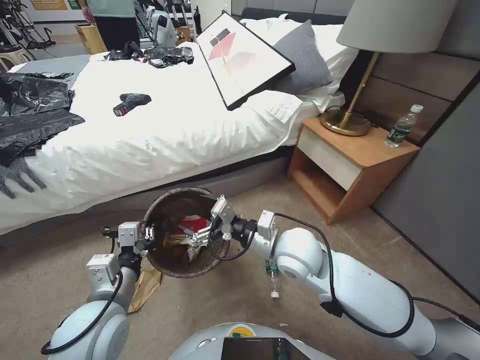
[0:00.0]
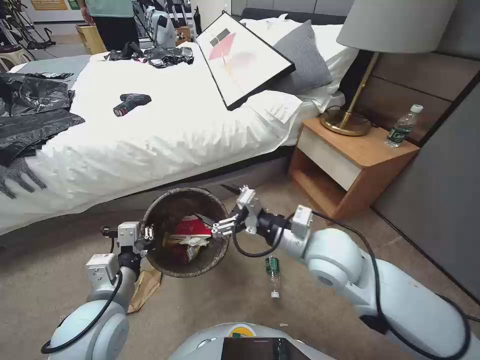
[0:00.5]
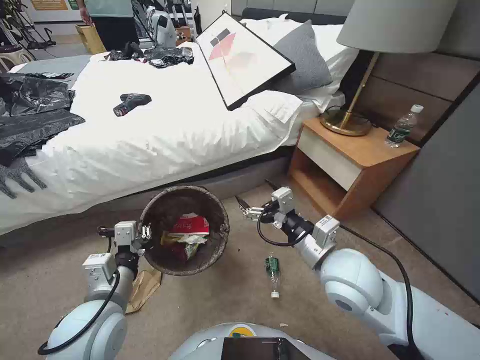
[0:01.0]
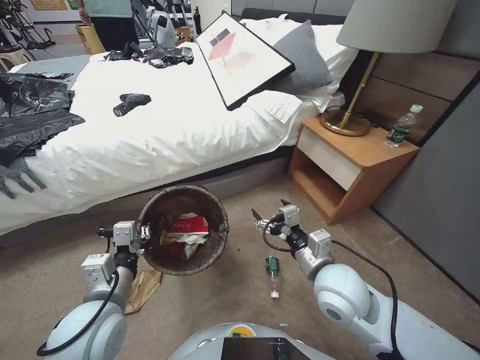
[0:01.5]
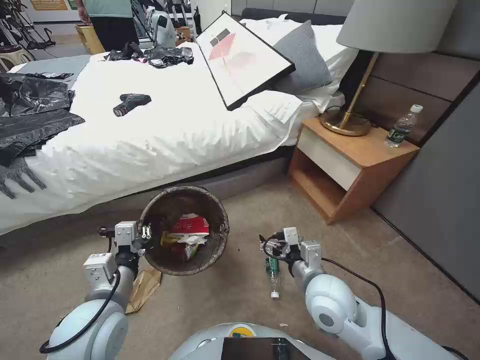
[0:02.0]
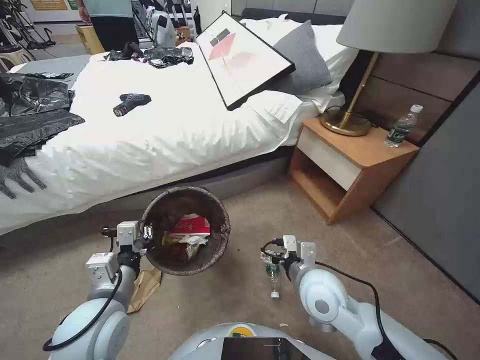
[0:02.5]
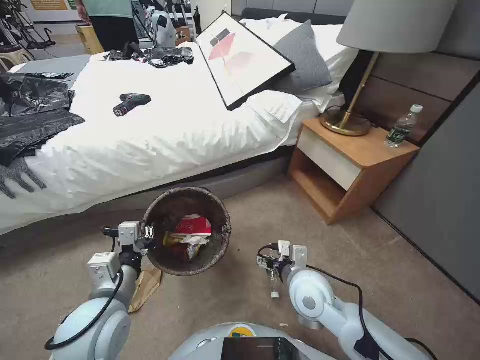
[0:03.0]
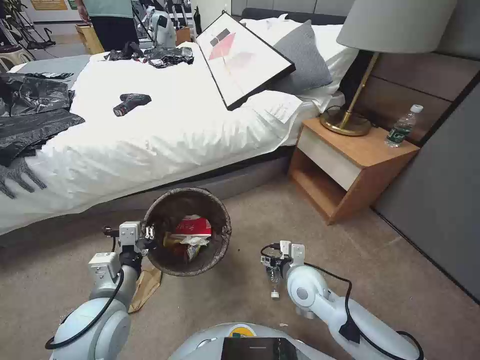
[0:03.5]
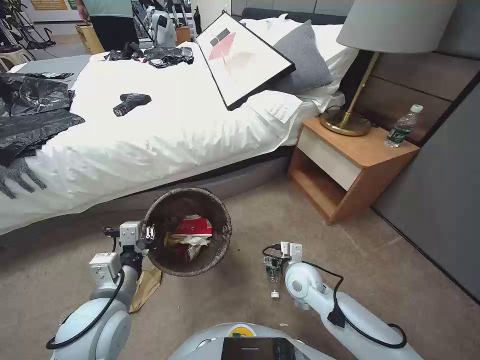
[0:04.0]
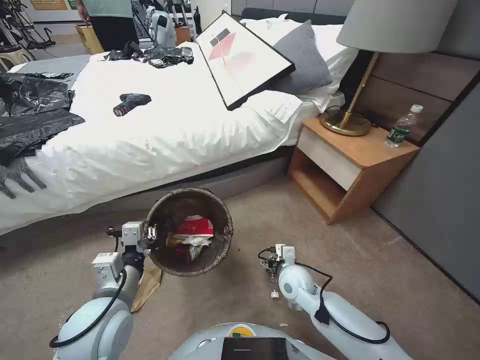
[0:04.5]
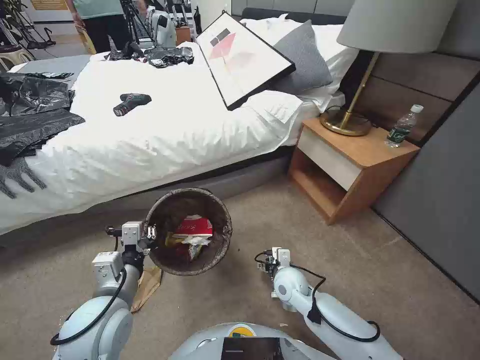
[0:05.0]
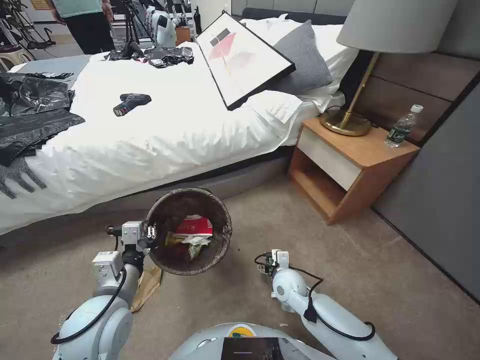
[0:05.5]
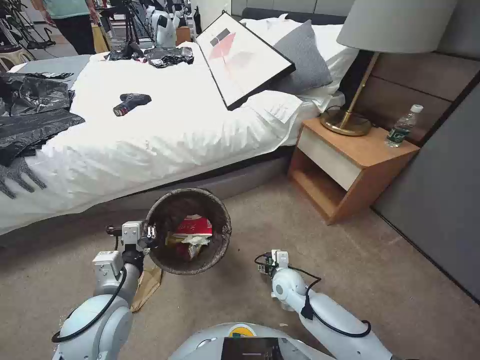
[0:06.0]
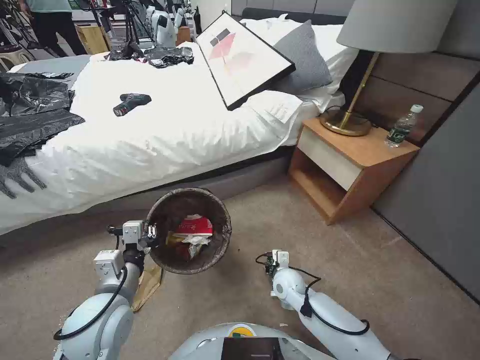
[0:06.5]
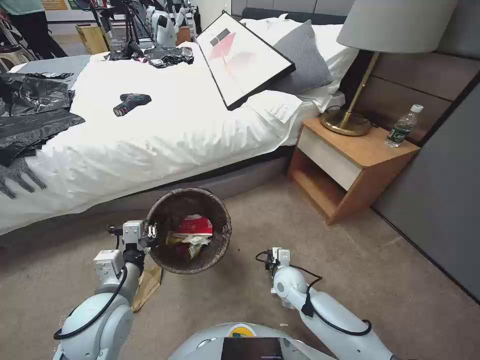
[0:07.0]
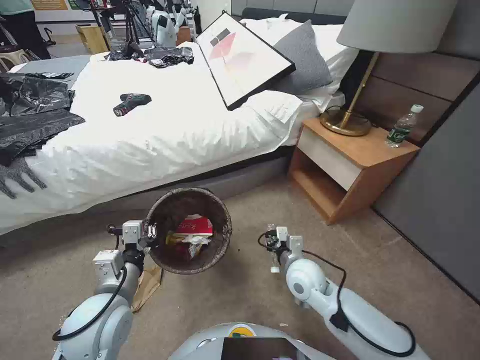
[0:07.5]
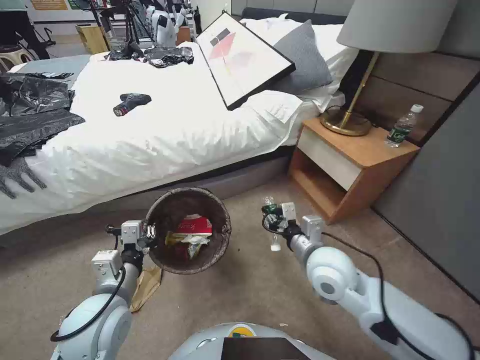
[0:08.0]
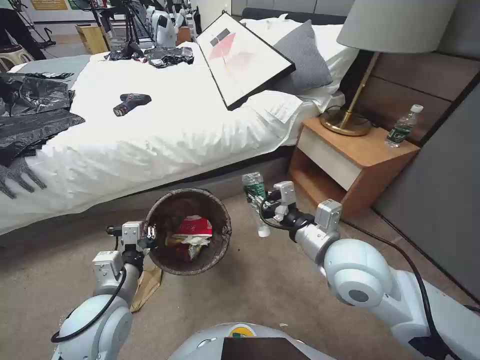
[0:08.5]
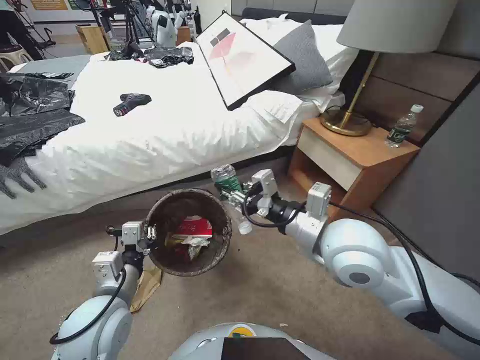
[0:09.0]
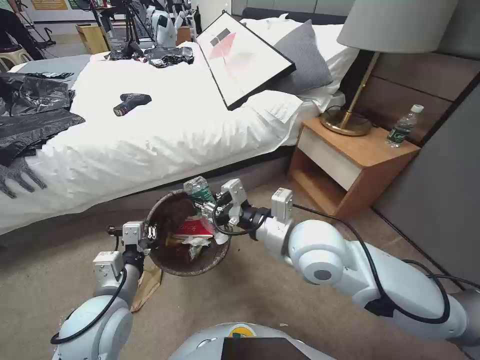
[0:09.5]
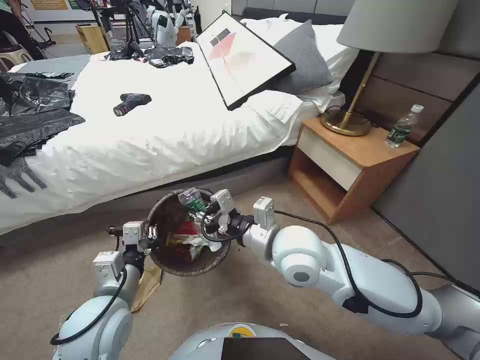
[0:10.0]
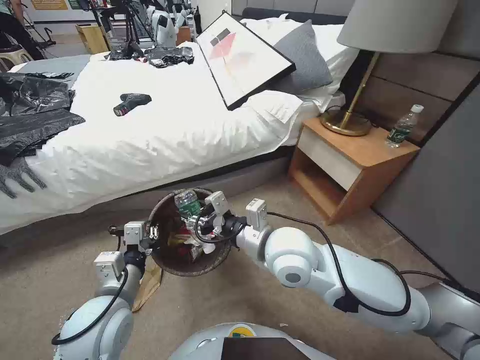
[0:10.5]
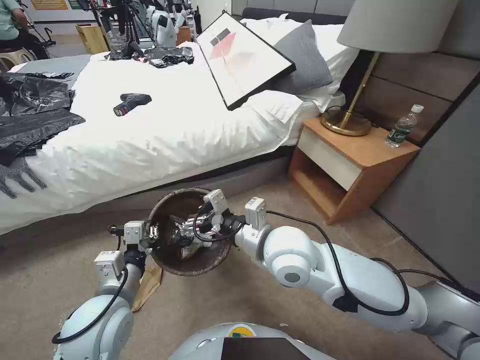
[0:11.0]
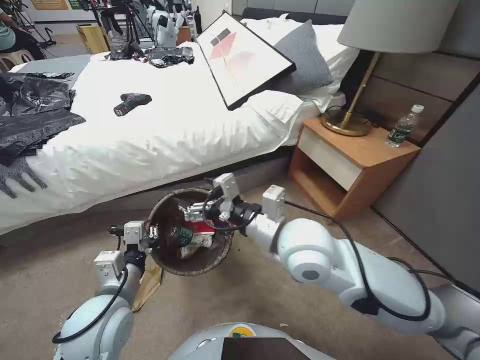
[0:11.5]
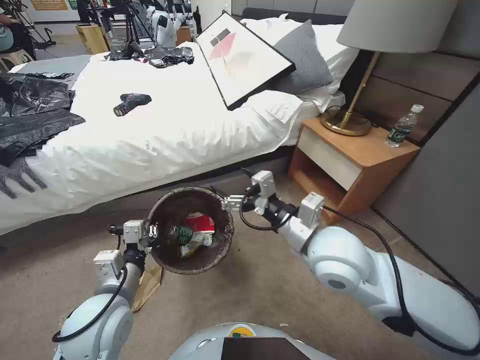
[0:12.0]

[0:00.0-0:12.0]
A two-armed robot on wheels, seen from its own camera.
Task of the whole recording: Pick up the trash bin, then pick up the garbage from the floor and place it into the trash bin.
0:00.0 to 0:02.0: The right gripper heads backward, to the right and downward, covering about 10 cm.
0:02.0 to 0:04.0: The right gripper goes roughly 10 cm downward and forward.
0:04.0 to 0:06.0: The right gripper heads downward, covering some 10 cm.
0:06.0 to 0:08.0: The right gripper shifts roughly 20 cm upward, and closes its fingers.
0:08.0 to 0:10.0: The right gripper shifts some 15 cm upward and to the left.
0:10.0 to 0:12.0: The right gripper moves approximately 5 cm, and opens.

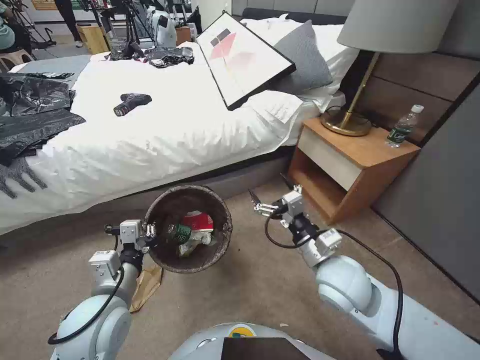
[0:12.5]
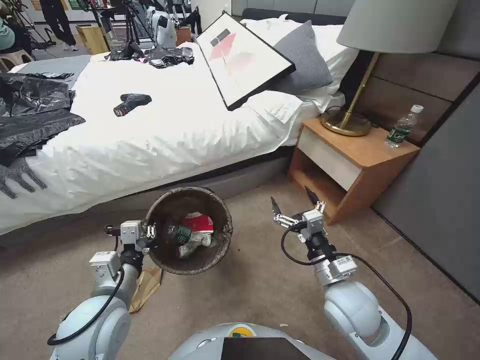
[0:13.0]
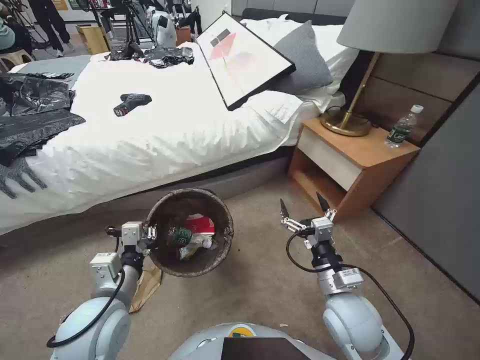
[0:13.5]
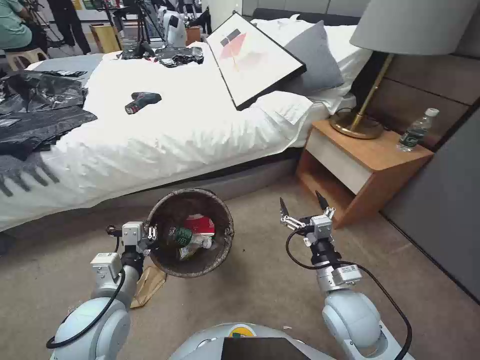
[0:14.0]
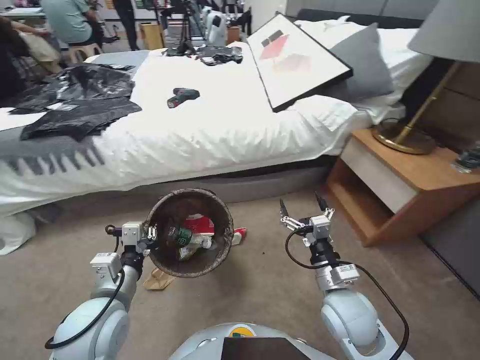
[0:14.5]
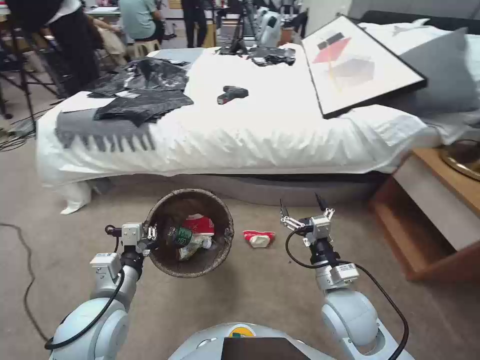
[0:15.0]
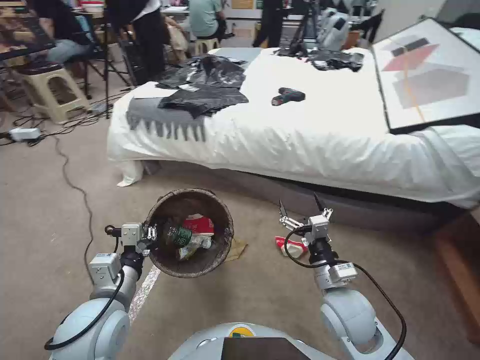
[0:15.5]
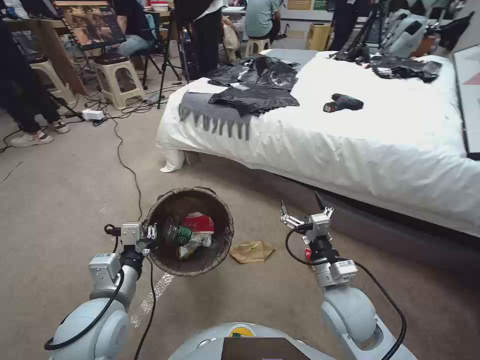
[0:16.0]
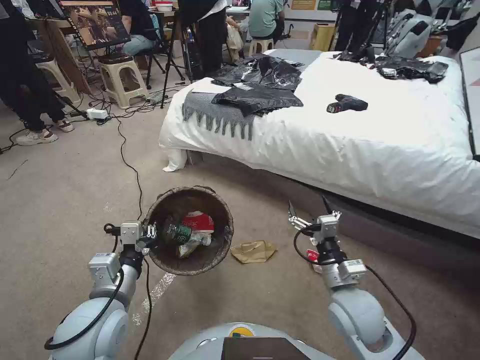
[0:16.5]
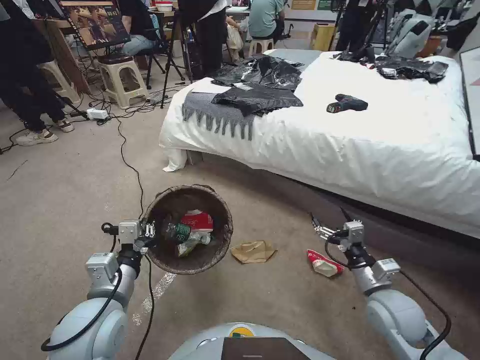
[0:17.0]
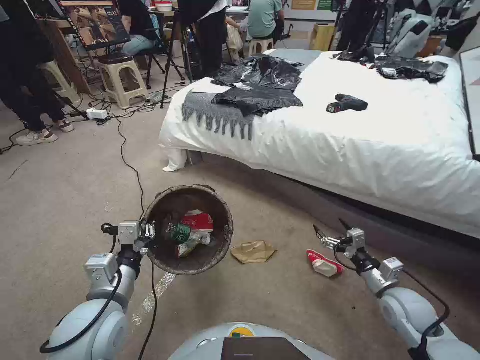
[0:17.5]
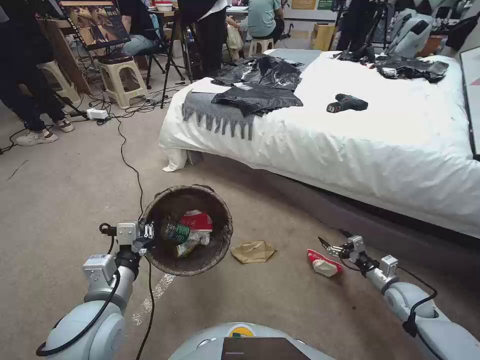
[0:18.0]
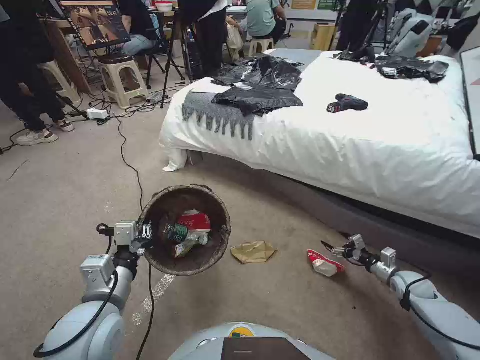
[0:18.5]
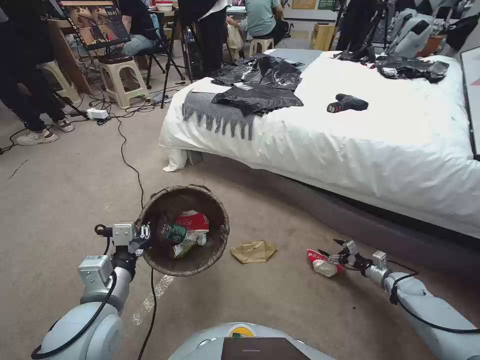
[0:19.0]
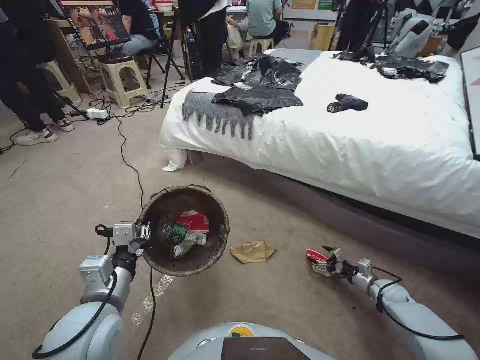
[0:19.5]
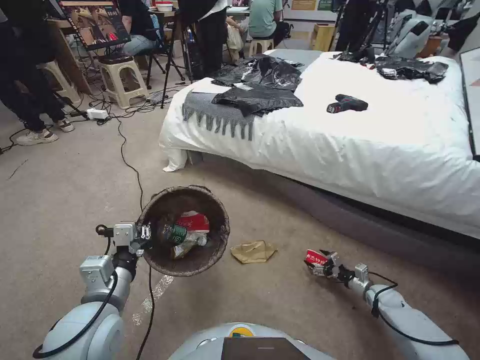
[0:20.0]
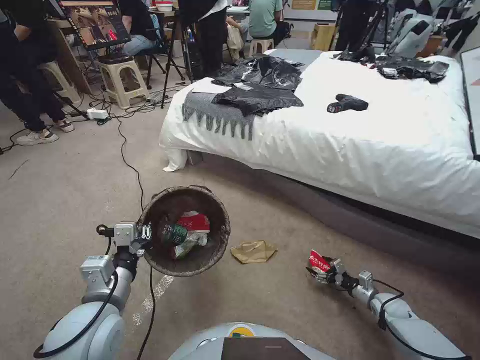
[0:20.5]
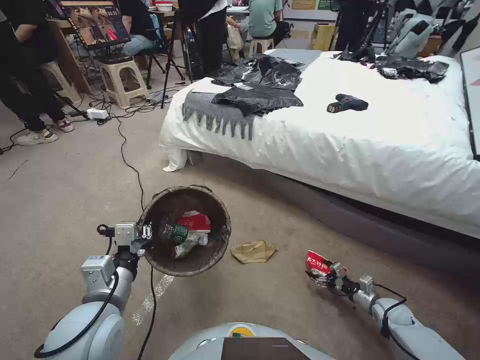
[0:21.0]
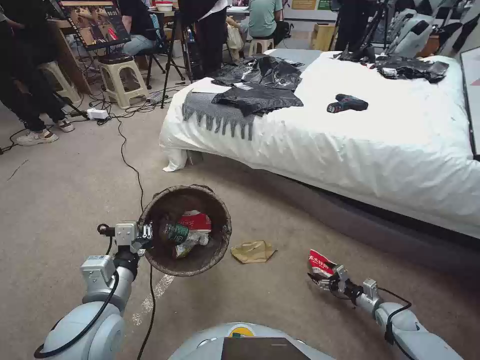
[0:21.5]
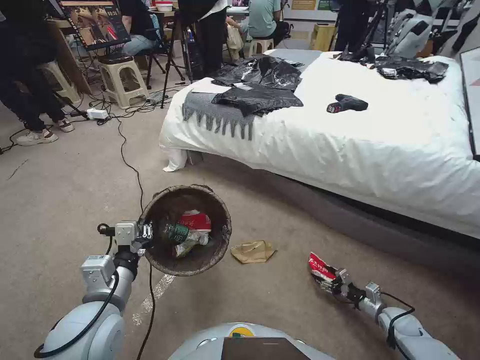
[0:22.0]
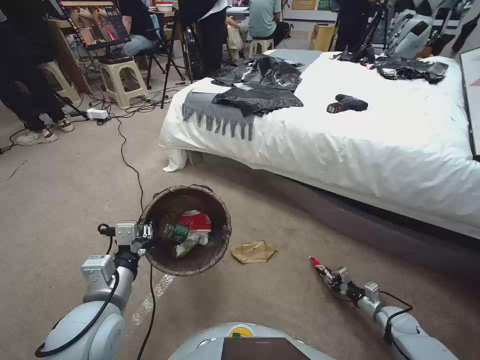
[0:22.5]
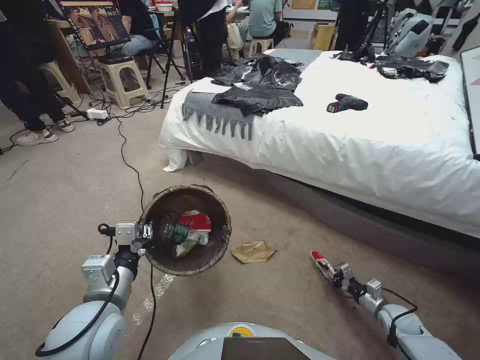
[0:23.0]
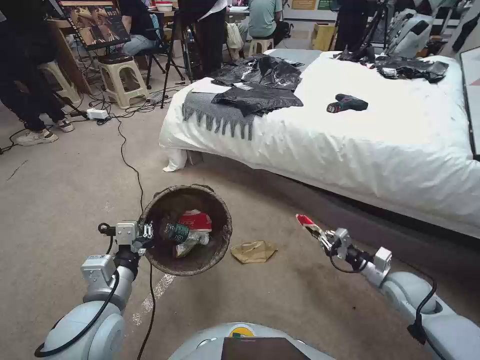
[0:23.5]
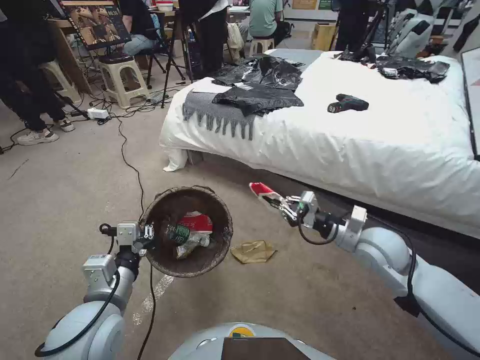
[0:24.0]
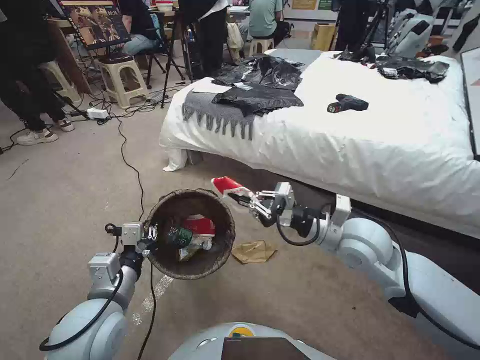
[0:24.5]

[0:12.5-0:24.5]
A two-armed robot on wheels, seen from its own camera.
Task of the whole recording: Pick up the trash bin, then pick up the garbage from the floor and place it into the trash bin.
0:12.5 to 0:14.5: The right gripper heads downward, covering about 10 cm.
0:16.5 to 0:18.5: The right gripper moves to the right and downward, approximately 35 cm.
0:18.5 to 0:20.5: The right gripper heads downward, covering some 10 cm.
0:20.5 to 0:22.5: The right gripper closes.
0:22.5 to 0:24.5: The right gripper shifts roughly 40 cm upward and to the left.

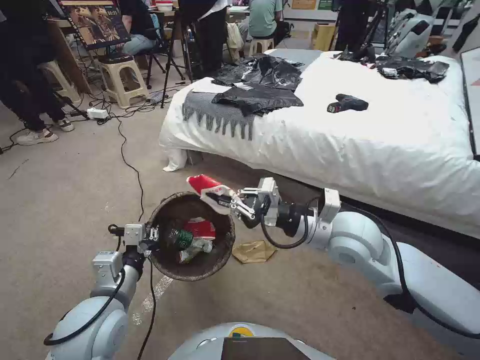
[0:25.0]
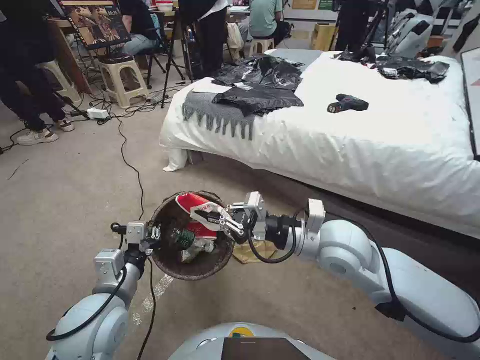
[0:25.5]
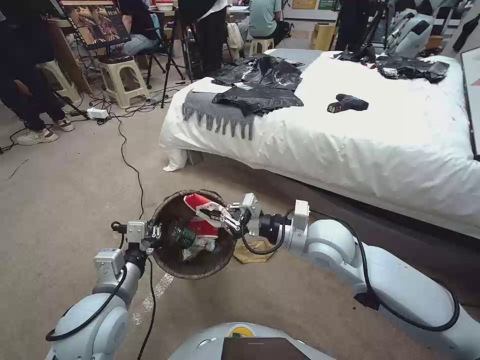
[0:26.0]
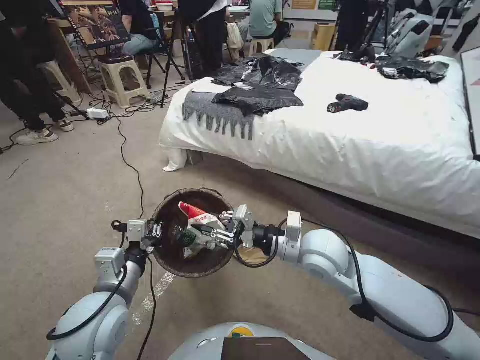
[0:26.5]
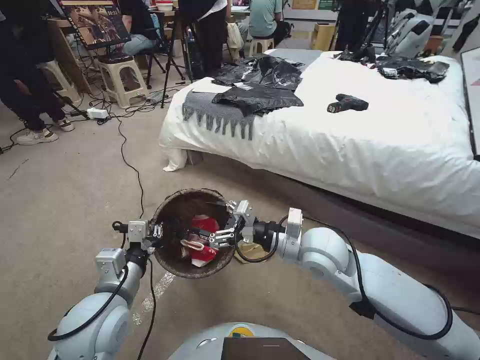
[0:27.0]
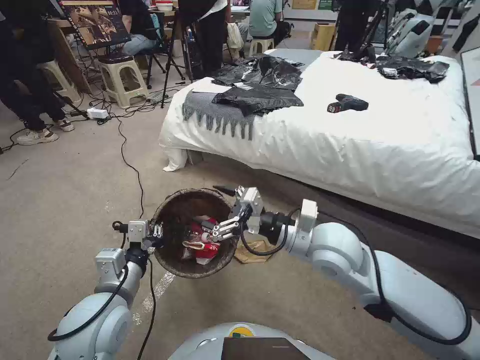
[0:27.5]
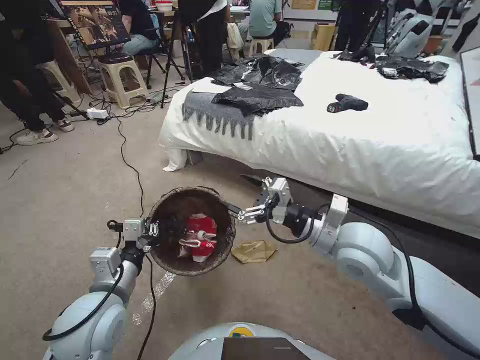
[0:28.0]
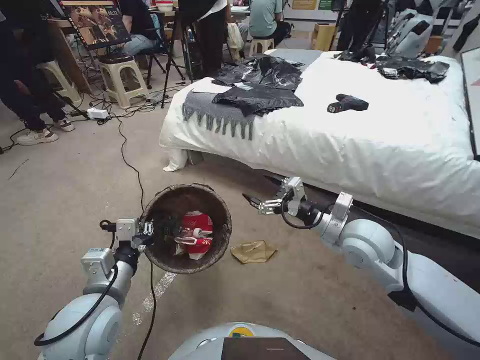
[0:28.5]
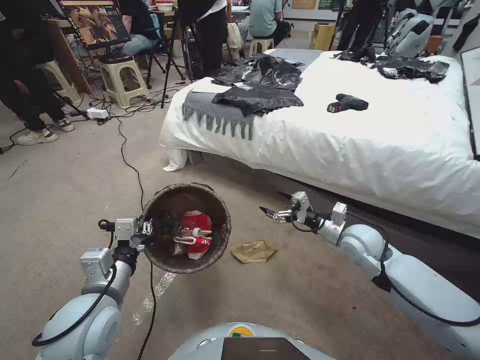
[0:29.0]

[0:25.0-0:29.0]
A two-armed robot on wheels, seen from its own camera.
Task of the whole recording: Pick up the trash bin, then pick up the garbage from the floor and place it into the trash bin.
0:25.0 to 0:27.0: The right gripper goes some 5 cm downward, and opens.
0:27.0 to 0:29.0: The right gripper is displaced to the right and downward by approximately 15 cm.
